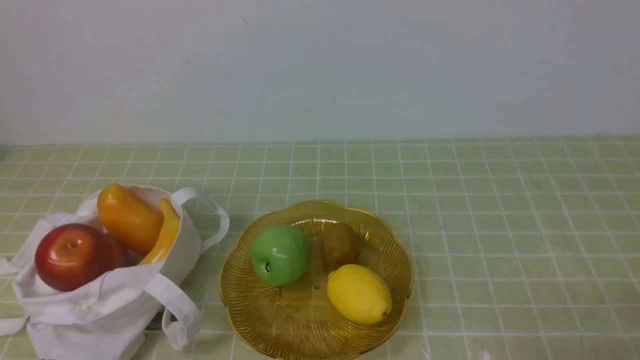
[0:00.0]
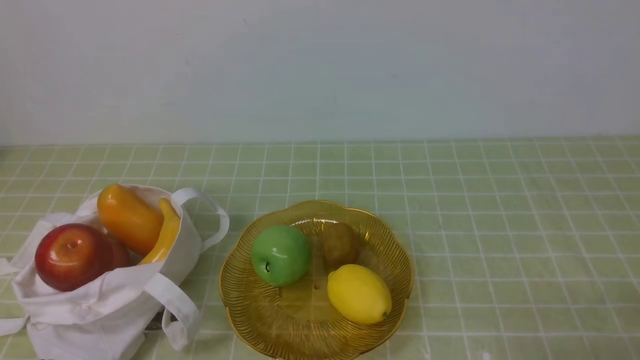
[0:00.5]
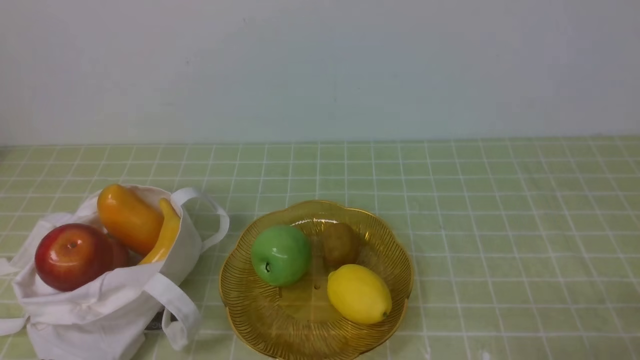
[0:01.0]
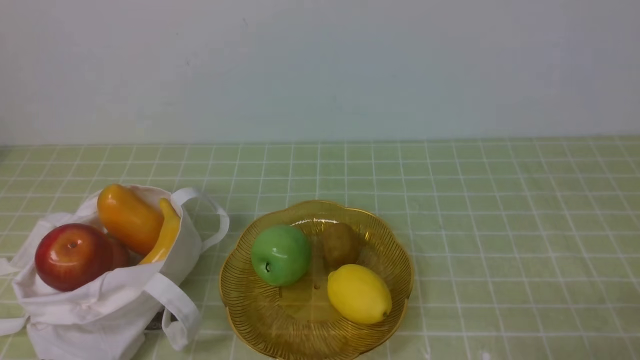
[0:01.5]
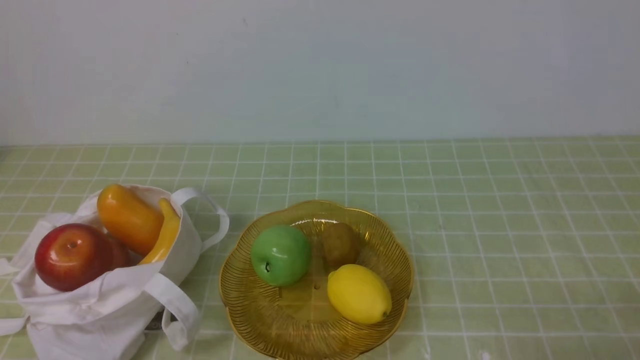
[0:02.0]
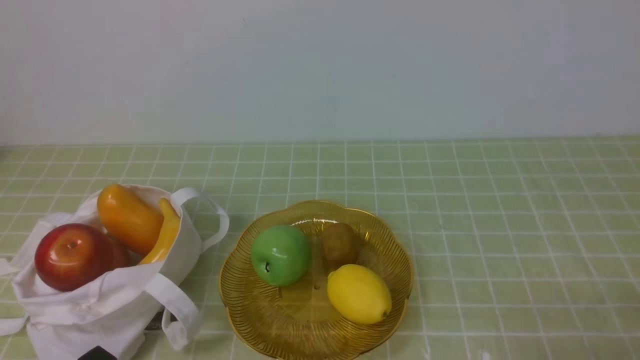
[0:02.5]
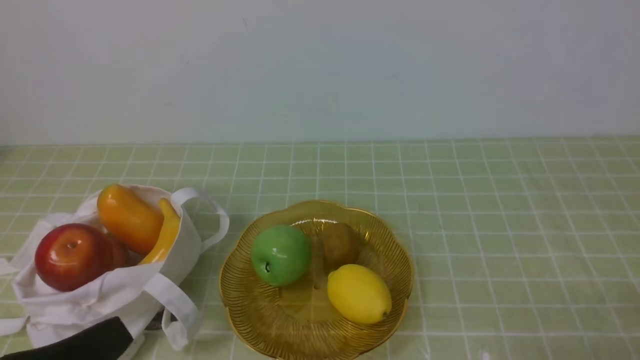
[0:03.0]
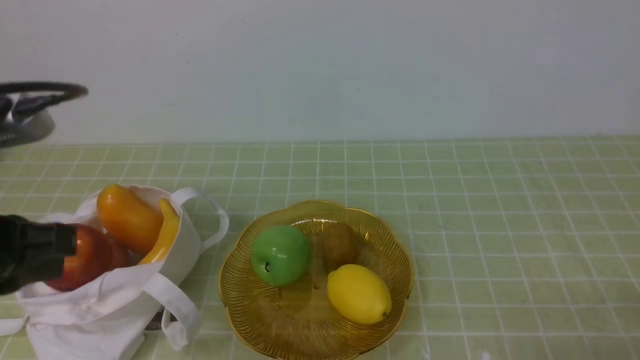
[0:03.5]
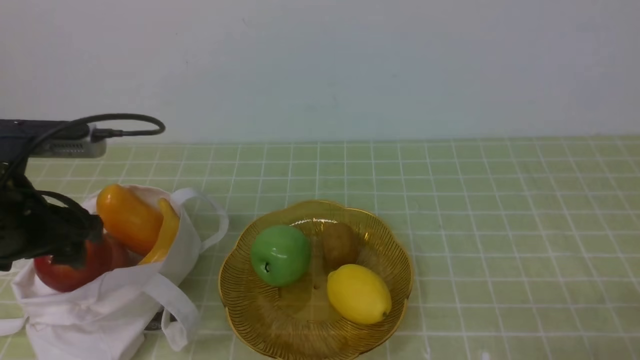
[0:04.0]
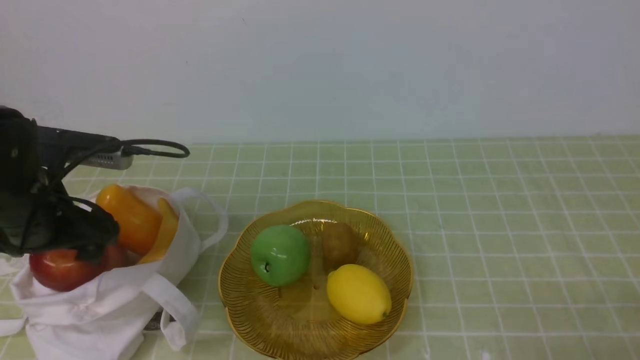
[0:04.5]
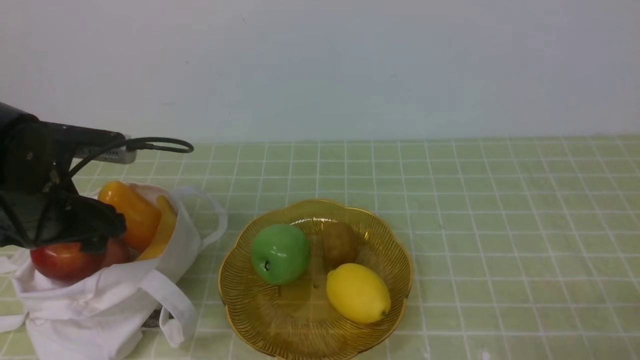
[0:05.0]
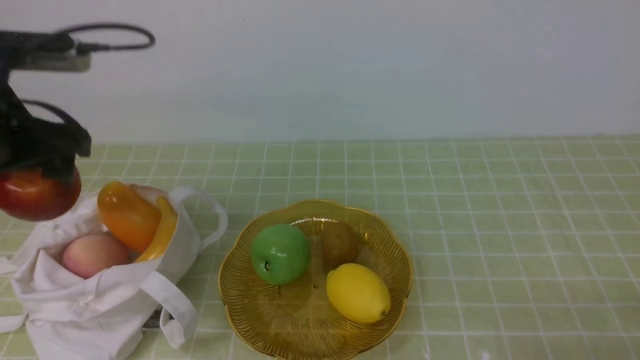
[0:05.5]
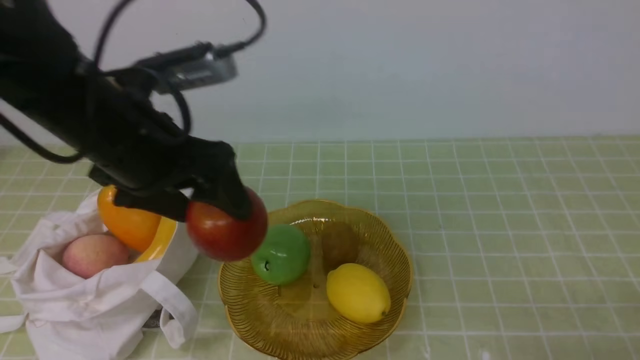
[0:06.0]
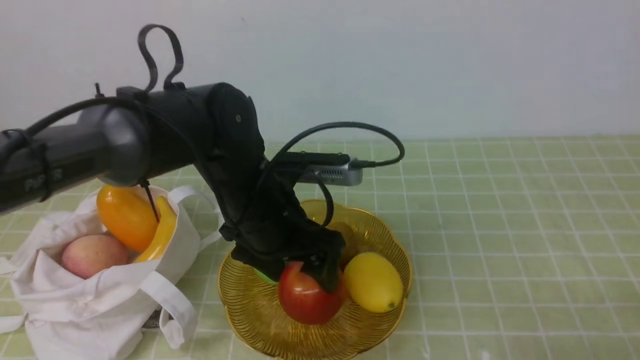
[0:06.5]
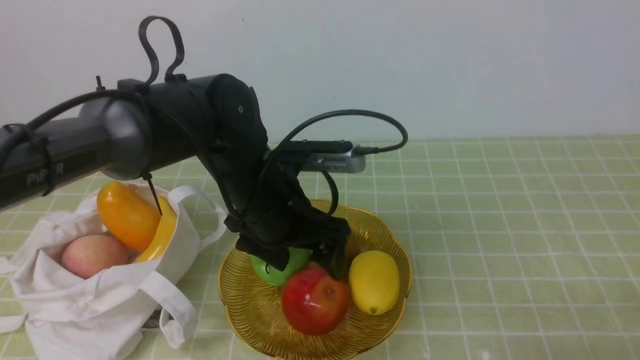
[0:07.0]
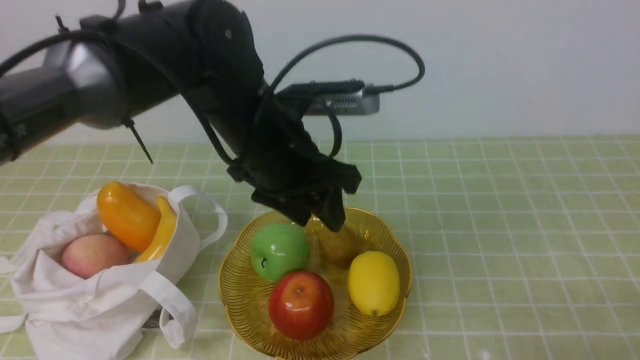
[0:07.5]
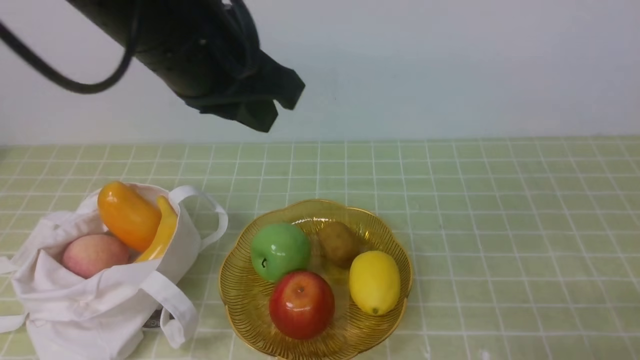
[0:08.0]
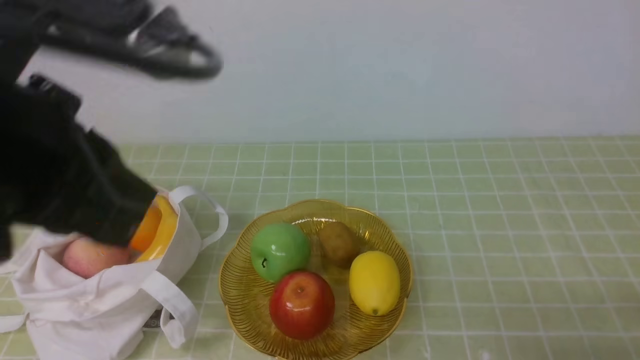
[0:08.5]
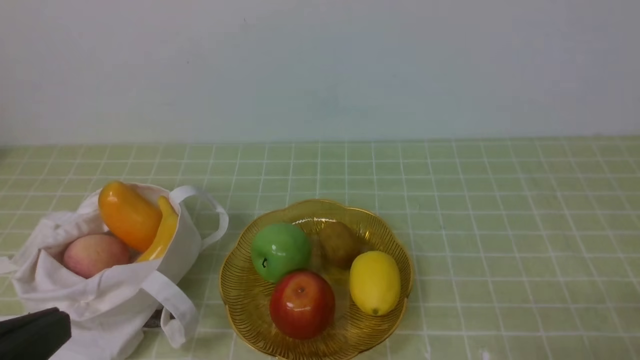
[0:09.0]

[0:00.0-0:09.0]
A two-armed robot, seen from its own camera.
Step, 0:00.0 to 0:05.0: use the left arm to grab an apple from the bag.
Step, 0:05.5 to 0:07.0: use the left arm to put the apple into the empty plate on the right.
0:02.0 to 0:04.5: The left gripper moves forward, about 20 cm, and opens.
0:04.5 to 0:07.0: The left gripper shifts about 20 cm to the right.
0:07.0 to 0:09.0: The left gripper moves backward, to the left and upward, approximately 30 cm, and closes up.

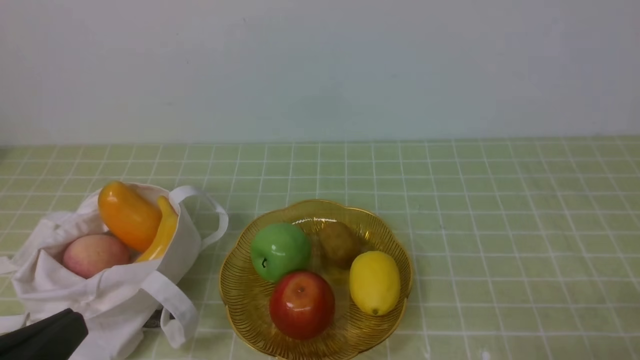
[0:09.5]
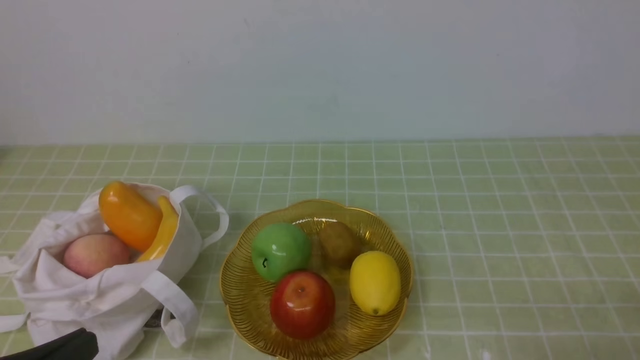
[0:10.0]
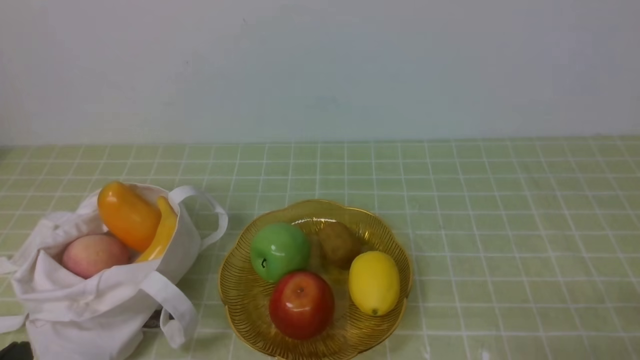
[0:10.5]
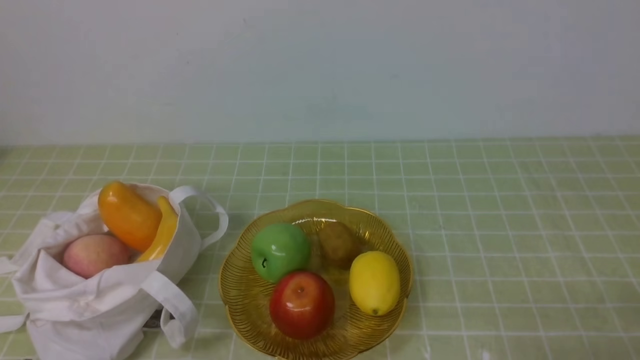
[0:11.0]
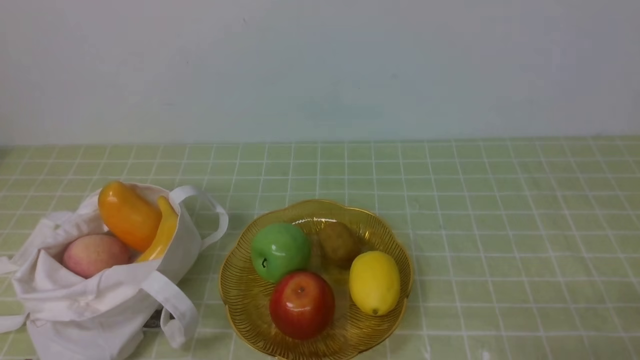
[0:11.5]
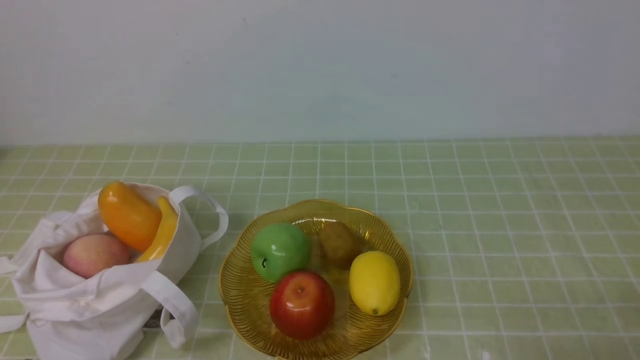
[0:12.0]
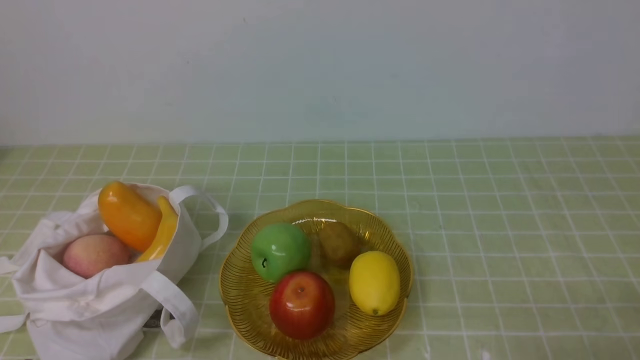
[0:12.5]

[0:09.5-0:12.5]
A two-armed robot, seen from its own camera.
0:09.5 to 0:11.0: The left gripper is displaced downward by approximately 10 cm.
0:11.0 to 0:12.5: Neither gripper changes place.
